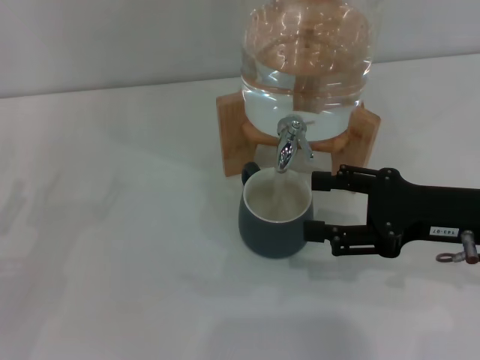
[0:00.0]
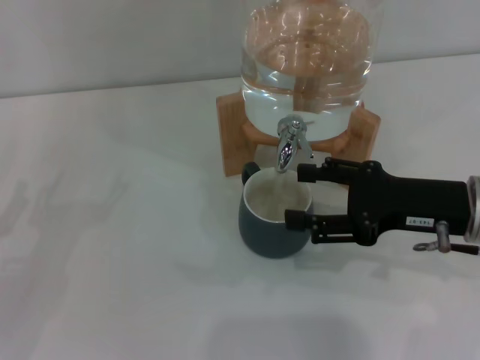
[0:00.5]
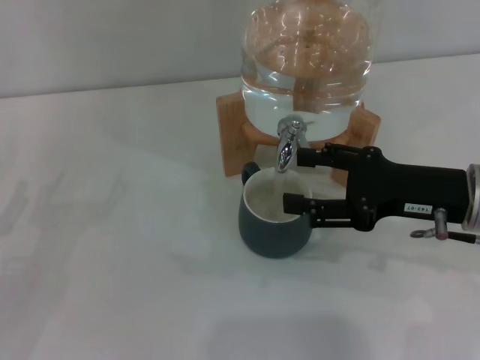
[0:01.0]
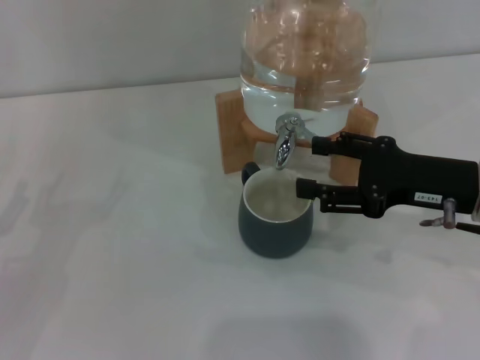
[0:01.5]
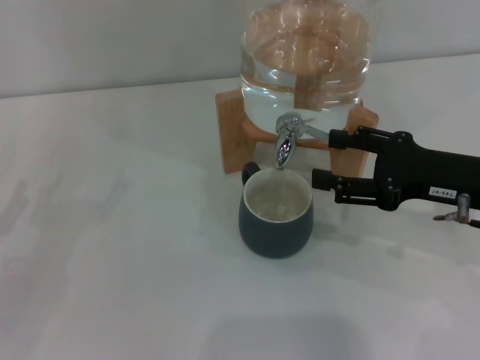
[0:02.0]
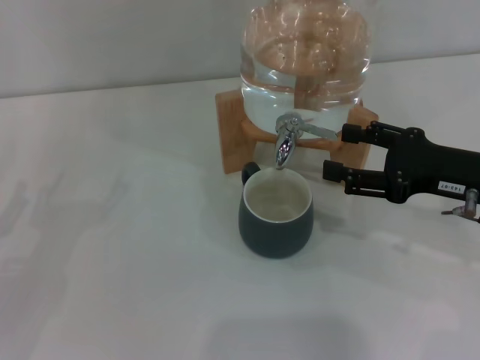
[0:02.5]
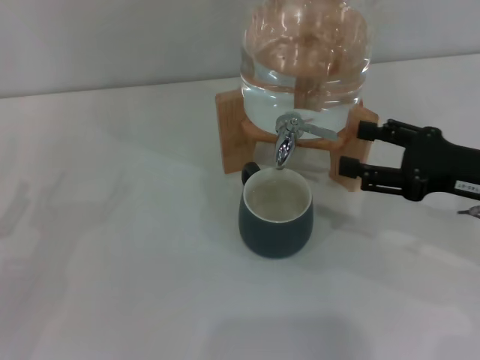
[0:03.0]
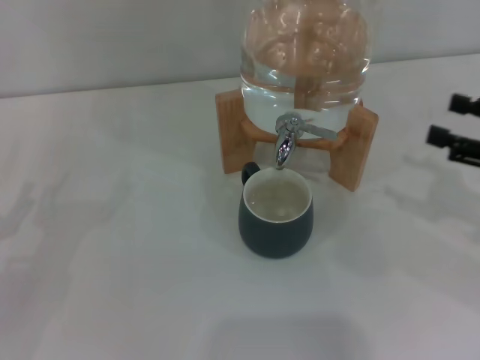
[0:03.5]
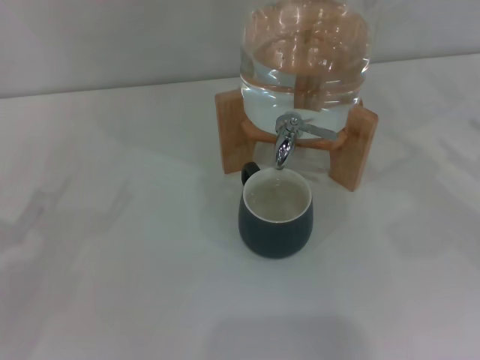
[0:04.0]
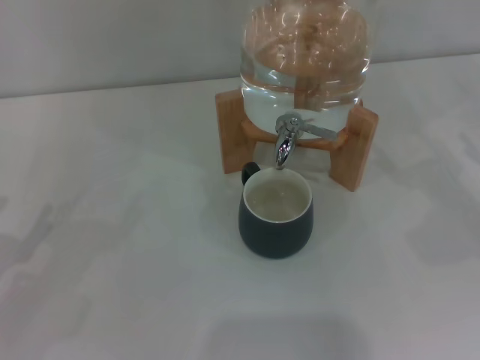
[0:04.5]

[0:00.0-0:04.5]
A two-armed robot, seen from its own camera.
Task of the whole recording: the left gripper pick up the black cup and place it horizontally under the faucet, the right gripper turn on the faucet to fill the cup, and then turn off the faucet.
Step, 0:00.0 to 0:02.5: Close the dispenser valve with the right gripper.
0:00.0 to 0:02.0: The grippers make only small movements.
0:02.0 to 0:04.5: The right gripper heads to the right, covering about 15 cm.
